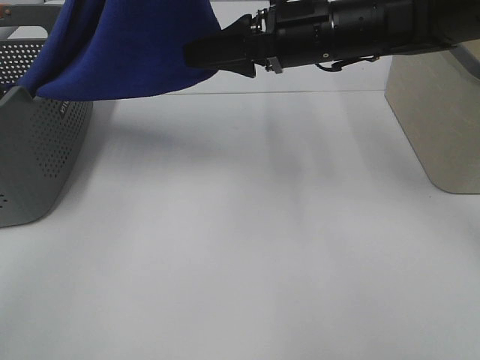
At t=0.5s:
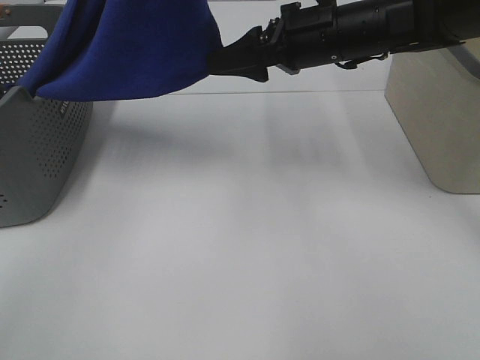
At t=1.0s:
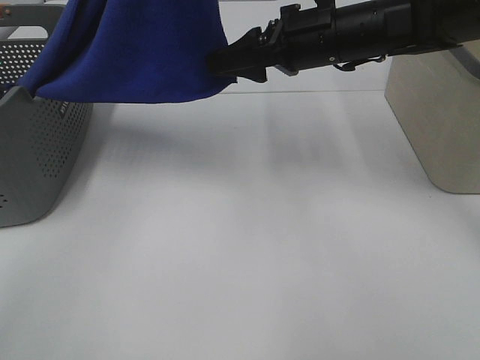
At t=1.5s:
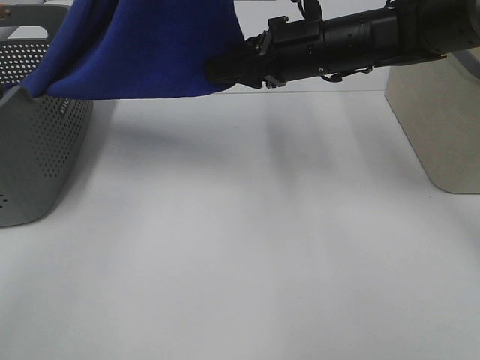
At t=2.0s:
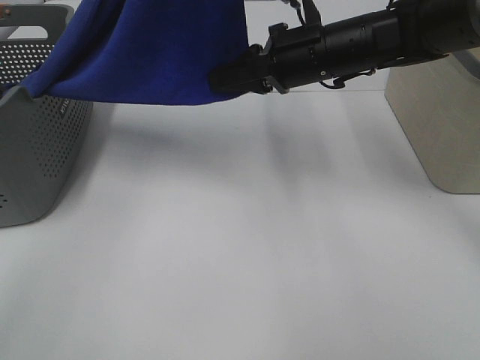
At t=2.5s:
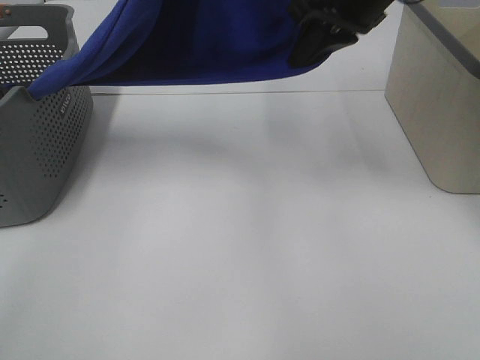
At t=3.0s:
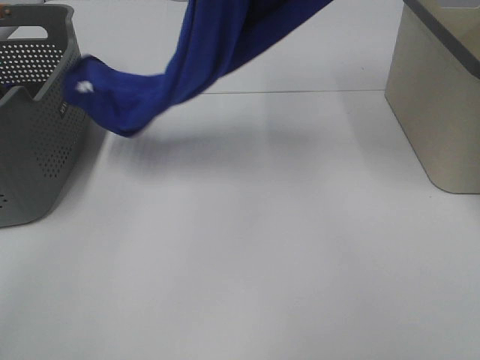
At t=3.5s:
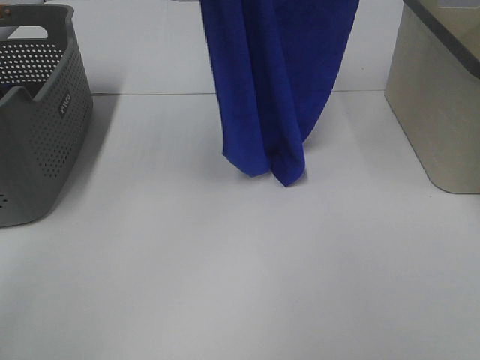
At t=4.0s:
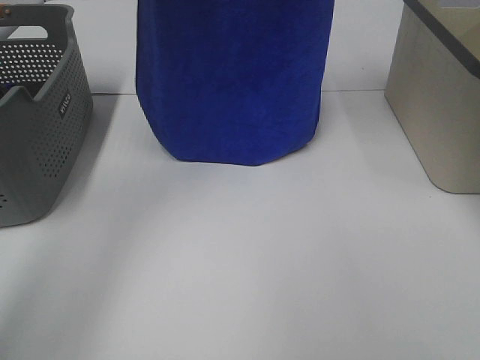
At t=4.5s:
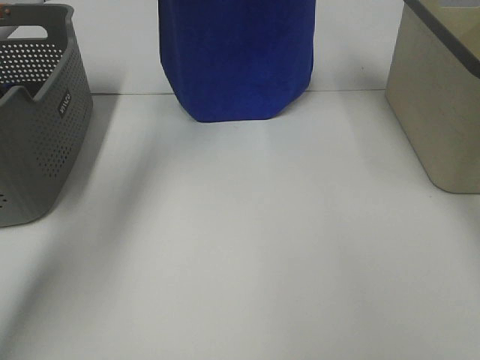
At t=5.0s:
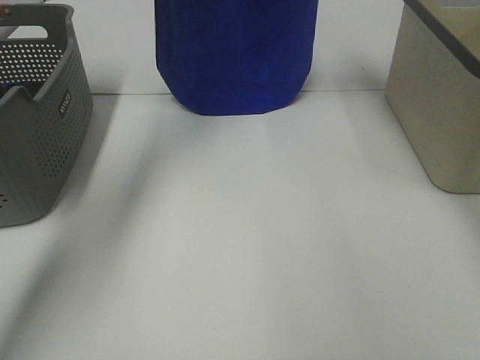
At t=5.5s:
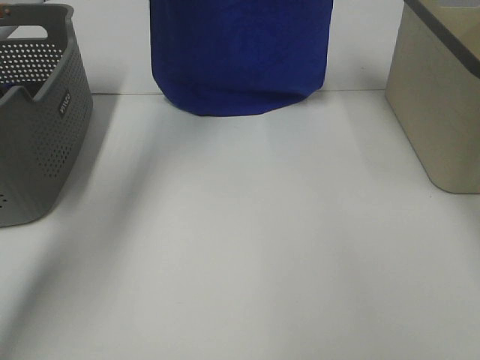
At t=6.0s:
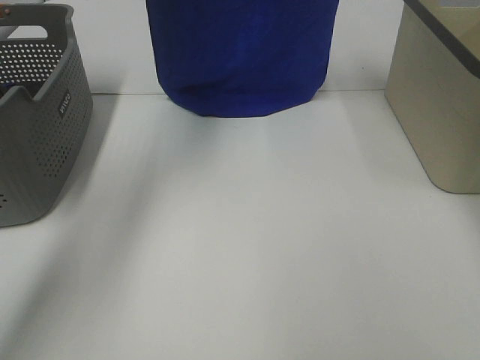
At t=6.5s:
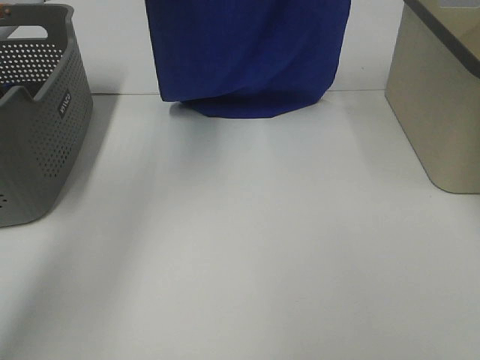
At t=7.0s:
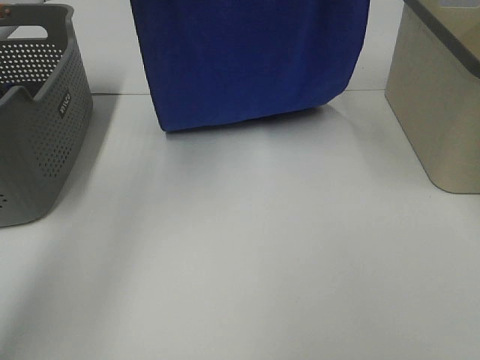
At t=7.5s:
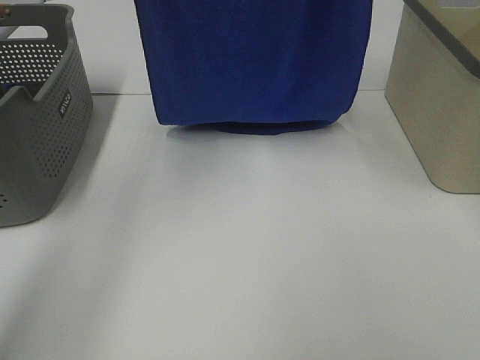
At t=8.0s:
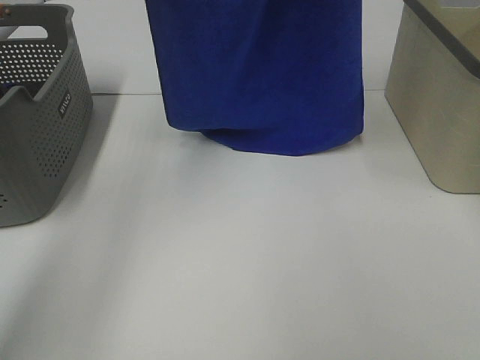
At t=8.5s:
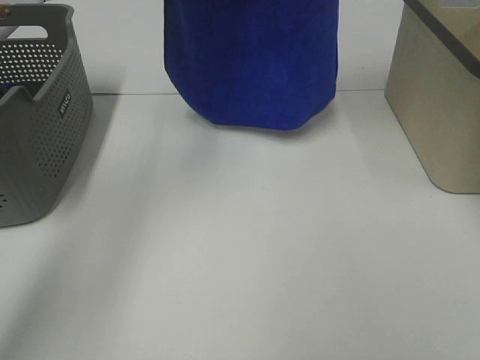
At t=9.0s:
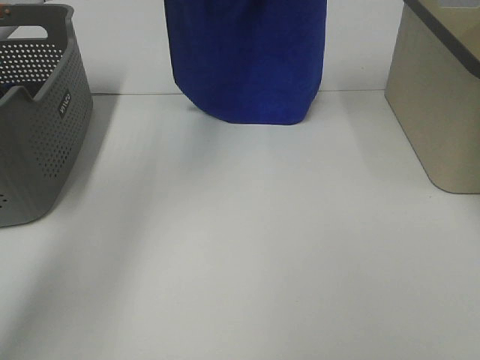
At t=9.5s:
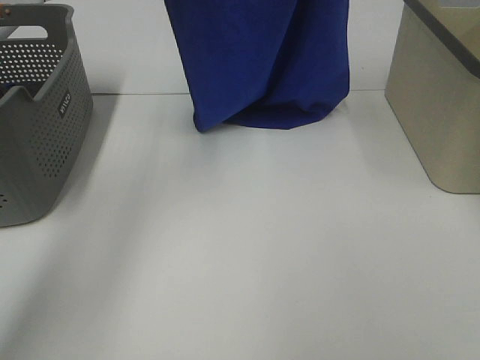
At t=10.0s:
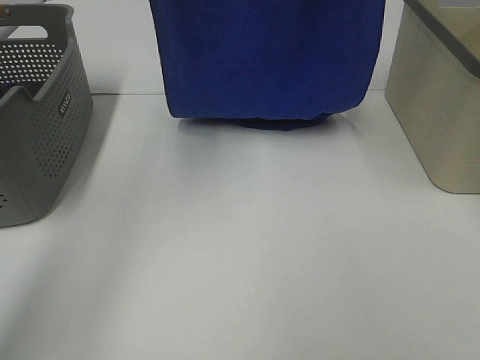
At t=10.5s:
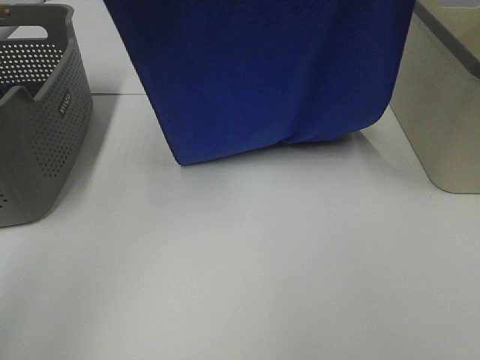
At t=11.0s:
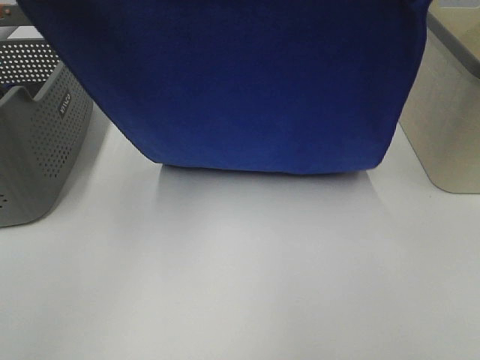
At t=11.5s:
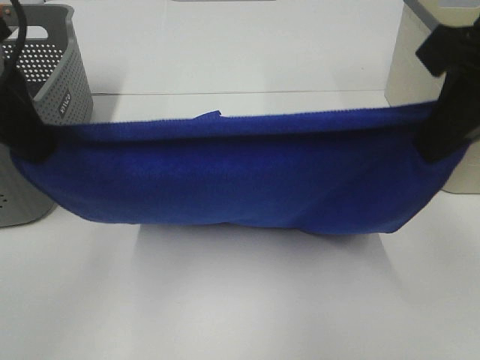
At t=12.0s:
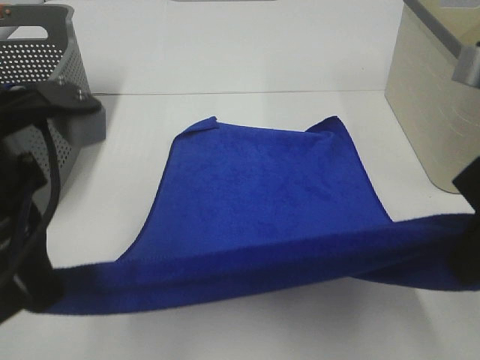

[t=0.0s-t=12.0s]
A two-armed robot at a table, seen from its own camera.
Task of the whole recording: Remove the towel and place it.
Step, t=1.0s to t=10.0s: Left hand: spread the blue towel flat on the table.
Step, t=1.0s to t=10.0s: Right hand: spread the blue towel flat on the table.
t=0.0s to t=2.0s: The right gripper closes its fingers.
t=2.0s to t=4.0s: The right gripper travels upward by roughly 25 cm. Meanwhile the left gripper travels forward and to the left by roughly 15 cm.
t=4.0s to t=6.0s: The left gripper shifts some 5 cm forward.
t=6.0s to t=8.0s: The two grippers go approximately 10 cm backward and upward.
t=10.0s to t=12.0s: Both grippers move backward and downward, approximately 30 cm.

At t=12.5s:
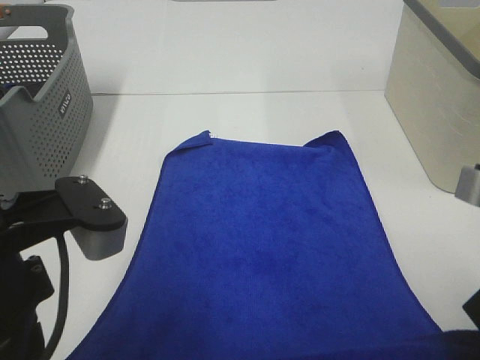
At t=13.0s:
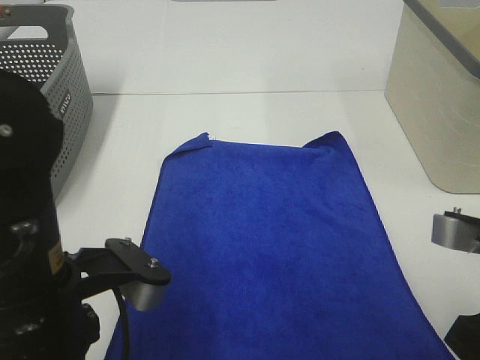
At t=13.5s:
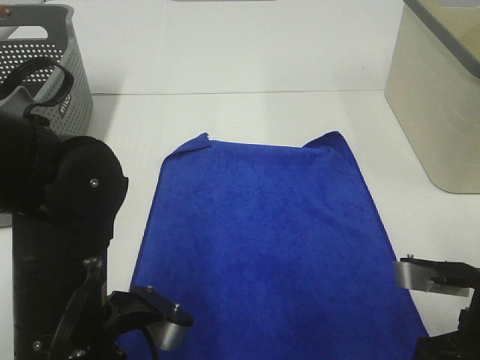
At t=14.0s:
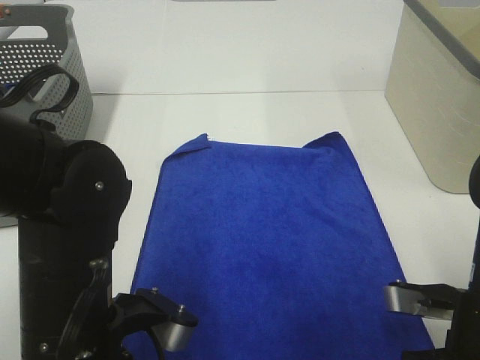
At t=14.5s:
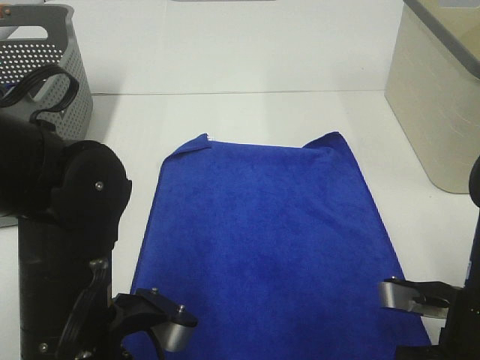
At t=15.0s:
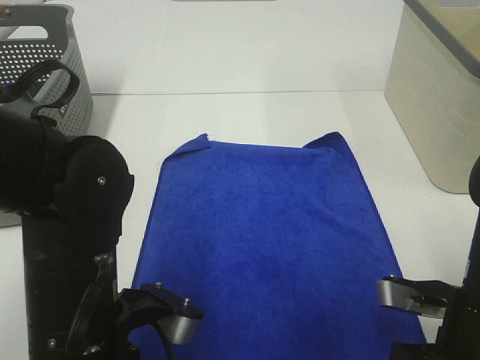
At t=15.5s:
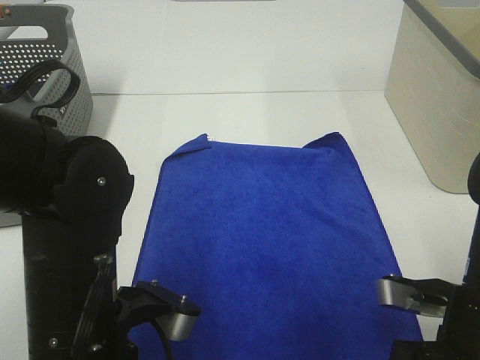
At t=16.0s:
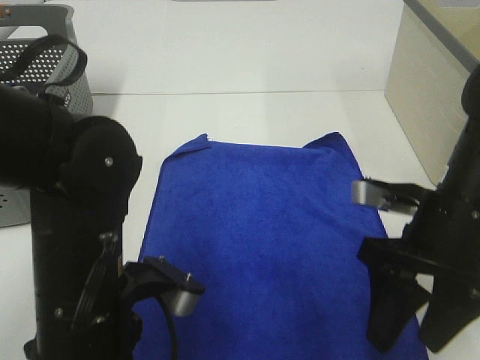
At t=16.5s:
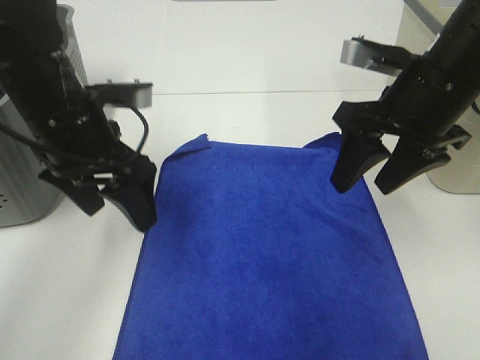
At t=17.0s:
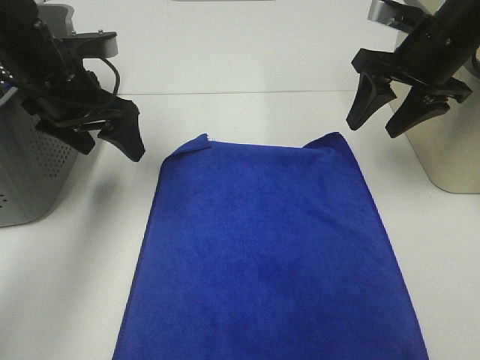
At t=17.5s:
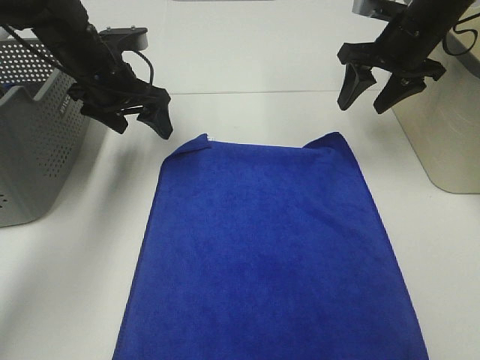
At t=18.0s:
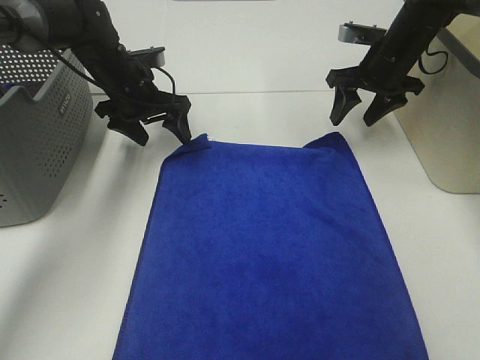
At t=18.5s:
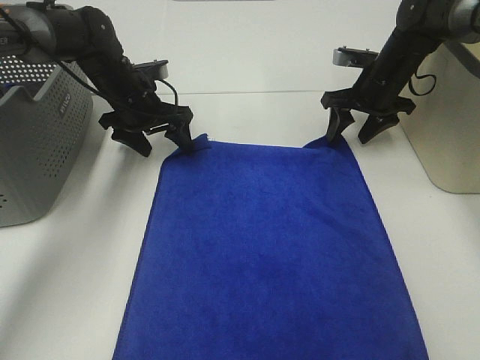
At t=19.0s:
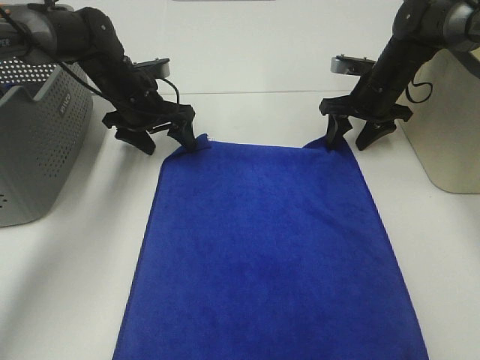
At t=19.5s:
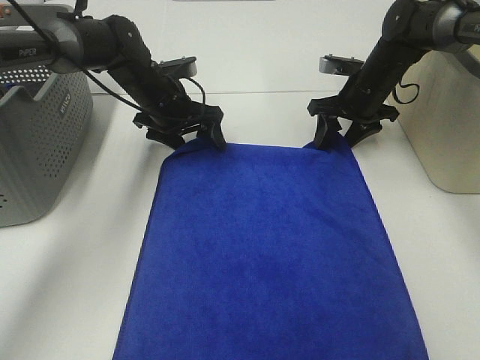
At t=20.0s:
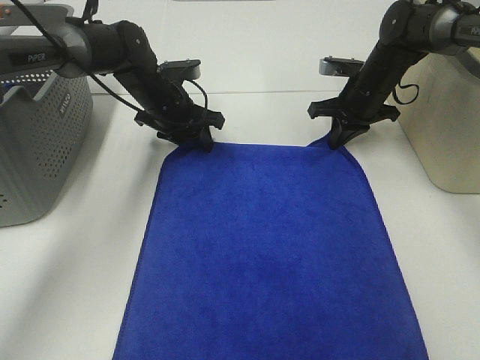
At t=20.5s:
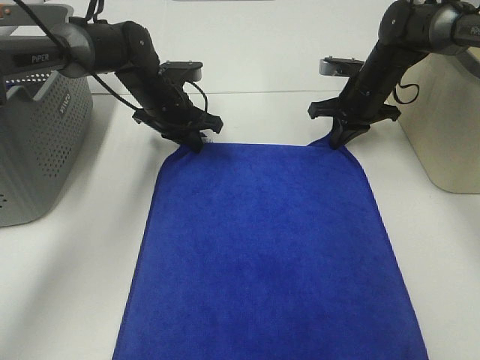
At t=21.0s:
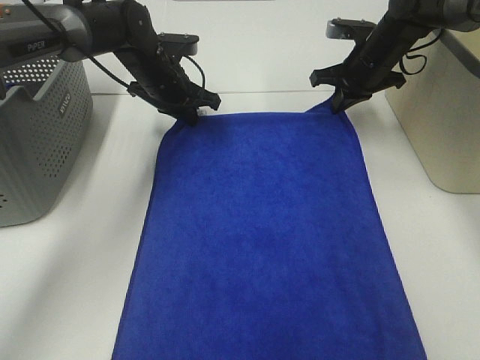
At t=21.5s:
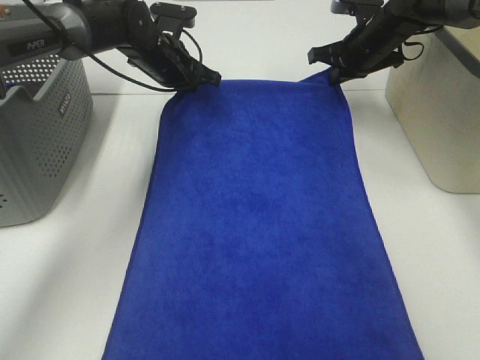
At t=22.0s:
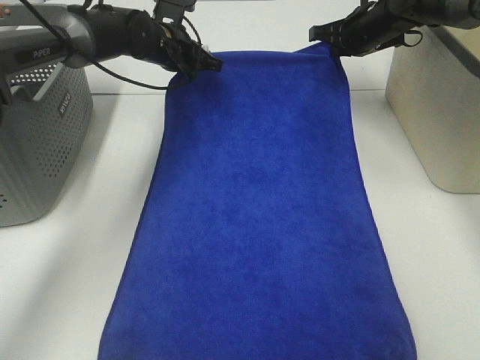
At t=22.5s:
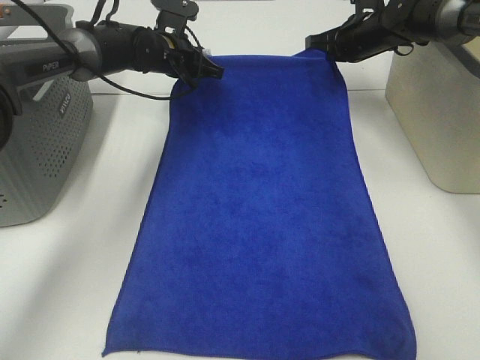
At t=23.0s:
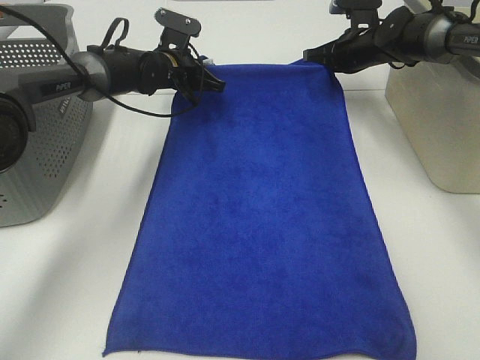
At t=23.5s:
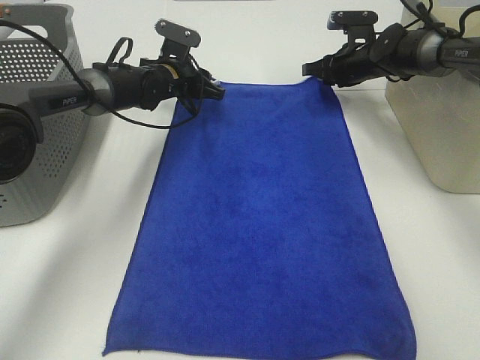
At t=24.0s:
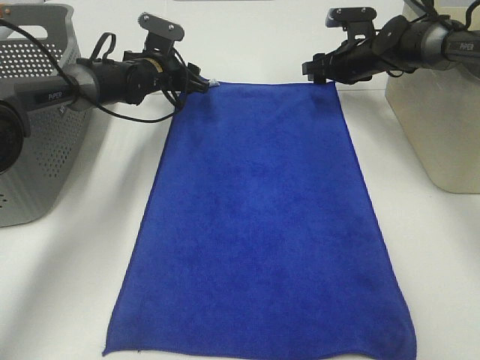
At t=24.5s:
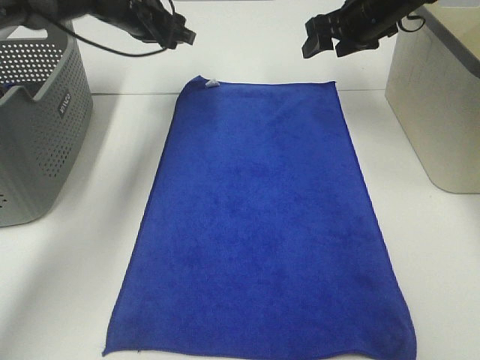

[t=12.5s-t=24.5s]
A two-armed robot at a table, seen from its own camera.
Task of the whole recording: Remove the towel and place it.
Step, t=12.5s to t=17.0s: Left hand:adjust the blue towel.
Step, t=12.5s to t=17.0s: Right hand:adjust the blue towel.
t=12.5s to t=14.5s: The grippers both shift downward by about 10 cm.
t=14.5s to t=16.5s: The grippers both shift forward and upward by about 20 cm. The right gripper opens up. Meanwhile the left gripper opens.
t=16.5s to t=18.5s: Both grippers travel together forward and downward, roughly 25 cm.
t=18.5s to t=20.5s: The right gripper closes up; the left gripper closes up.
t=20.5s to t=22.5s: The left gripper moves forward, about 5 cm; the right gripper heads forward and upward, covering roughly 10 cm.
t=22.5s to t=24.5s: The grippers both shift upward by about 5 cm. The left gripper opens its fingers; the right gripper opens.

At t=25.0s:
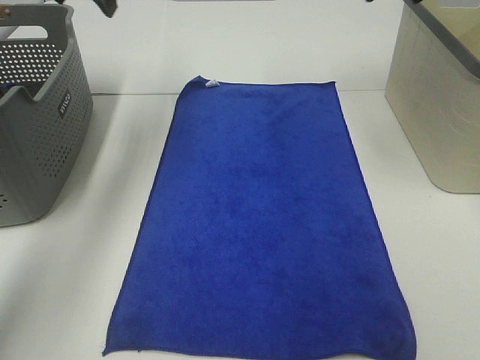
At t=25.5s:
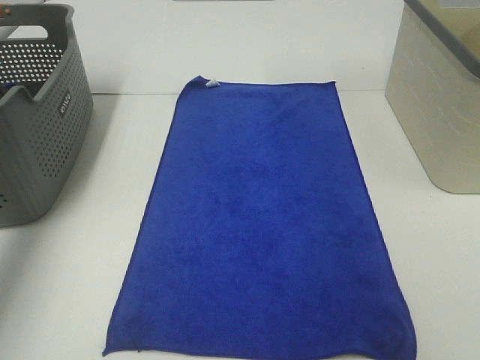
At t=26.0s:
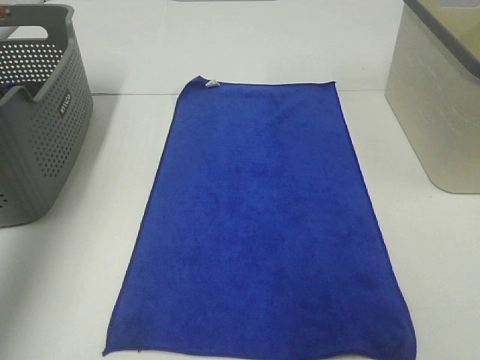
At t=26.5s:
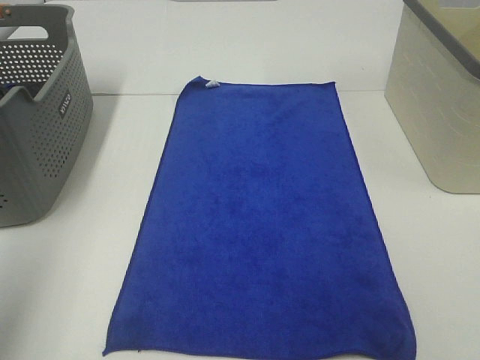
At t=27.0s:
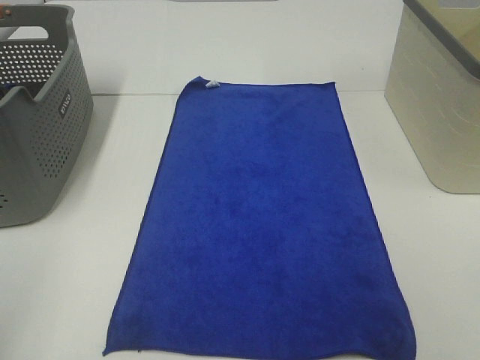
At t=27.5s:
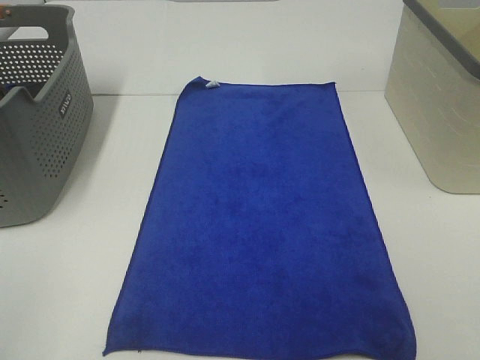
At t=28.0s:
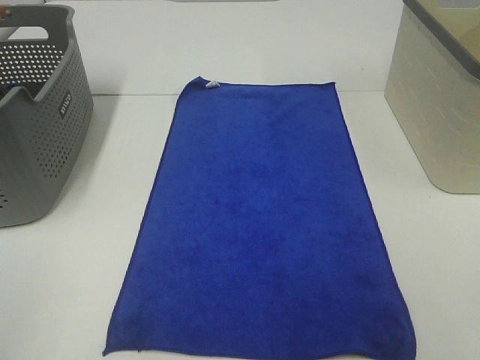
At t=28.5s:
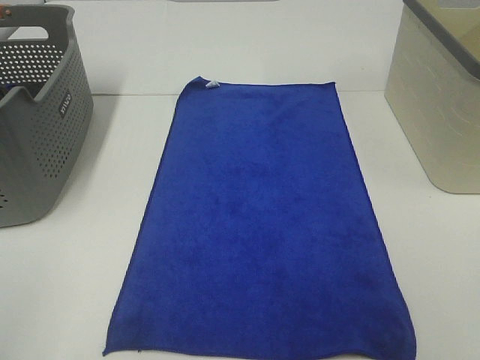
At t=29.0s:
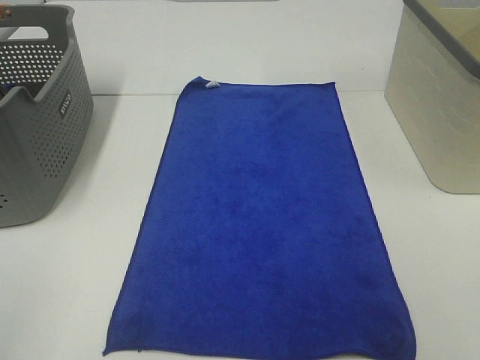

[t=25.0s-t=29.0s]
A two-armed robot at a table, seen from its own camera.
Task of the whole recording: Remove the towel and place it.
t=25.0s to t=27.0s: The left gripper shifts about 40 cm backward.
